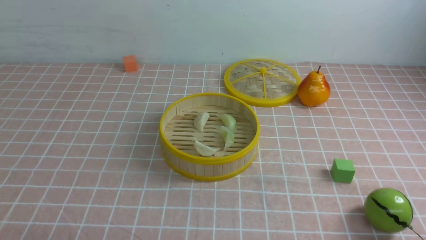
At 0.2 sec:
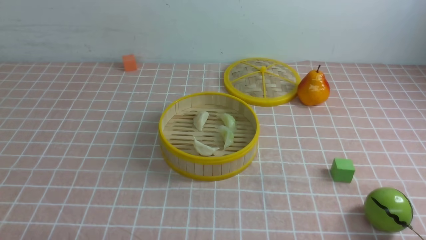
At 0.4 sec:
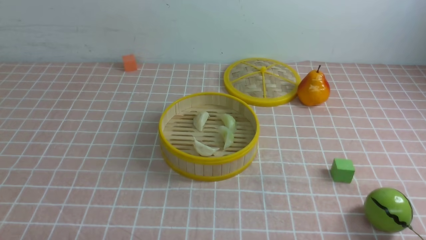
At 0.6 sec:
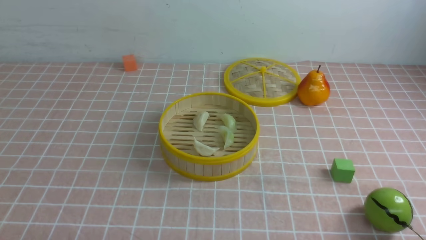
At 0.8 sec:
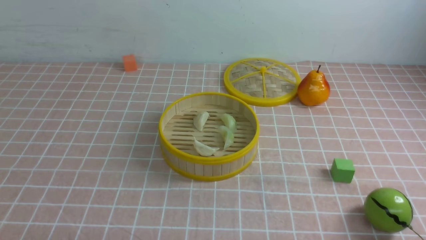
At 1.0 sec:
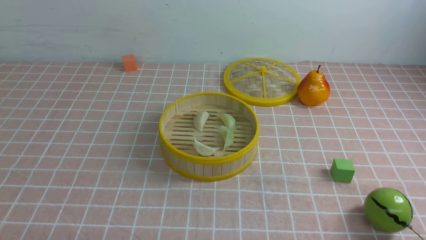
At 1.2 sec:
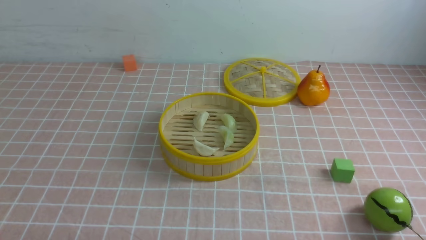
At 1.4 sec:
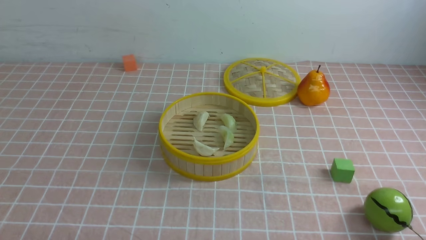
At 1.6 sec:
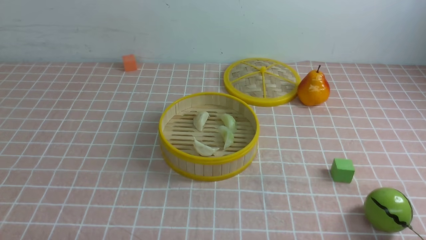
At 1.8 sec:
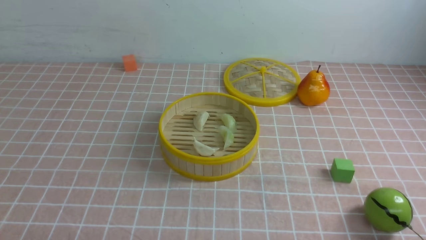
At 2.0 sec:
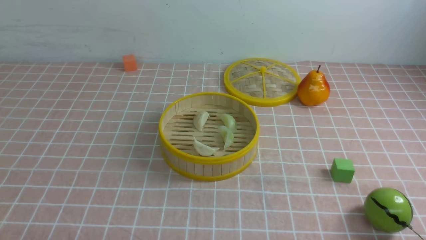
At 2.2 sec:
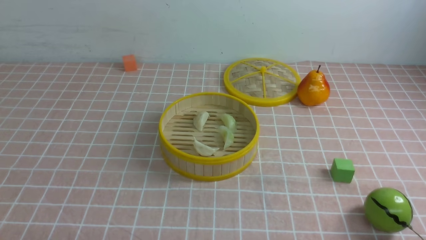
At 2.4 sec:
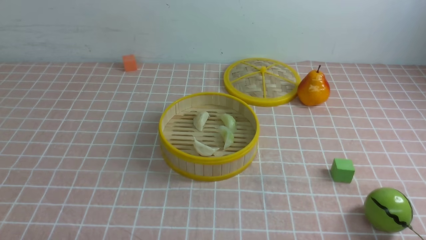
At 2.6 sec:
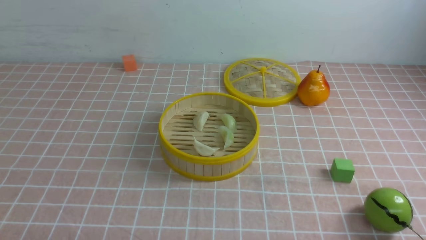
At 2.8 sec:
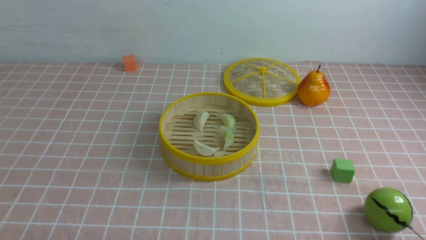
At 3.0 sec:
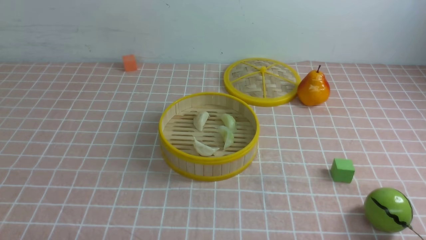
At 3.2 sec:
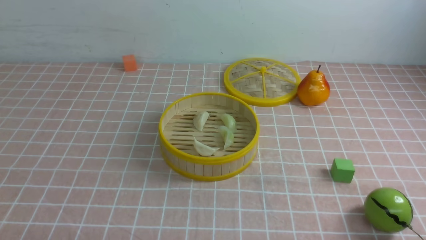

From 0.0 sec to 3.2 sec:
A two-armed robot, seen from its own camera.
Task of the whole recording: put the dumplings into the steamer on the table with the pink tablecloth.
From 1.6 sec to 3.2 sec: The two grippers keep their place.
